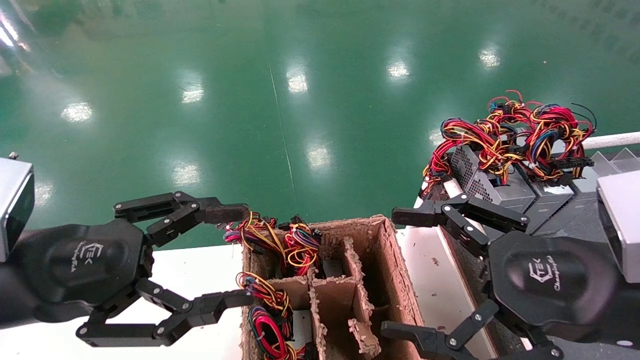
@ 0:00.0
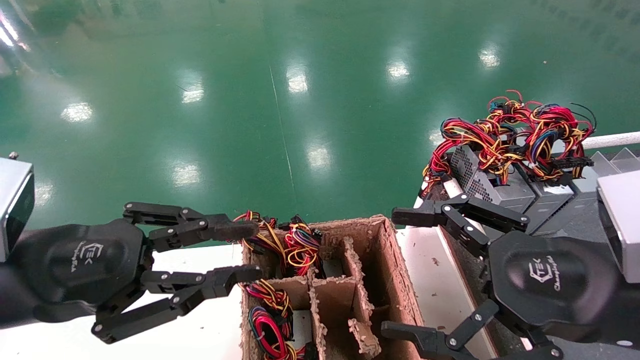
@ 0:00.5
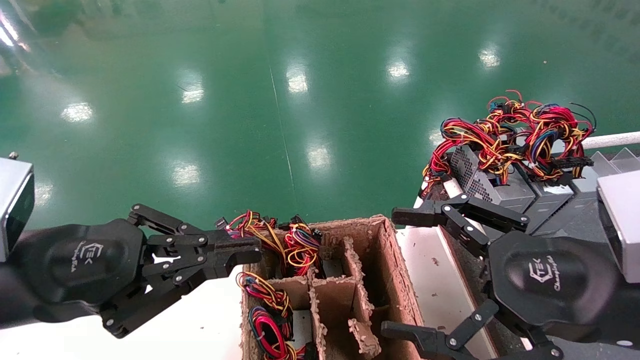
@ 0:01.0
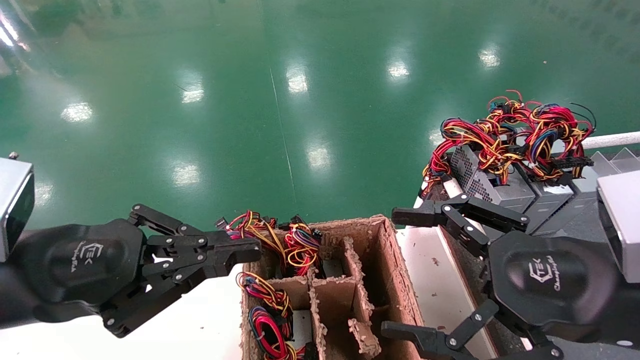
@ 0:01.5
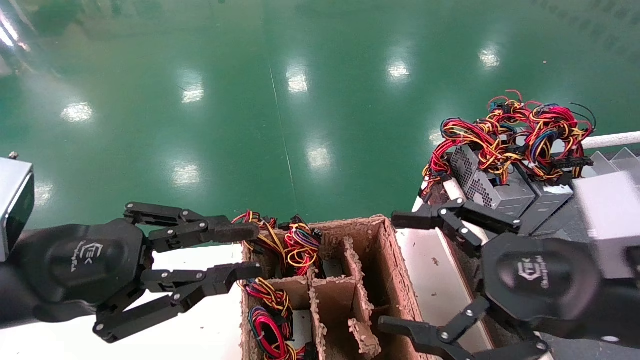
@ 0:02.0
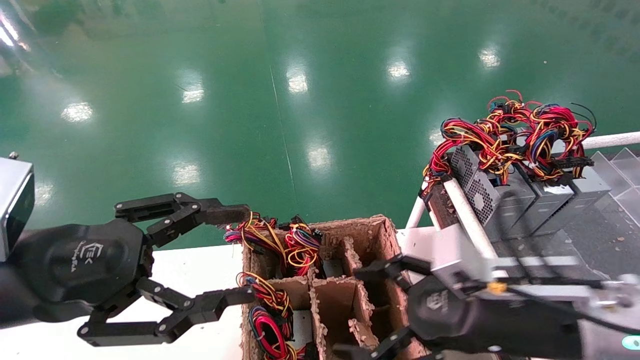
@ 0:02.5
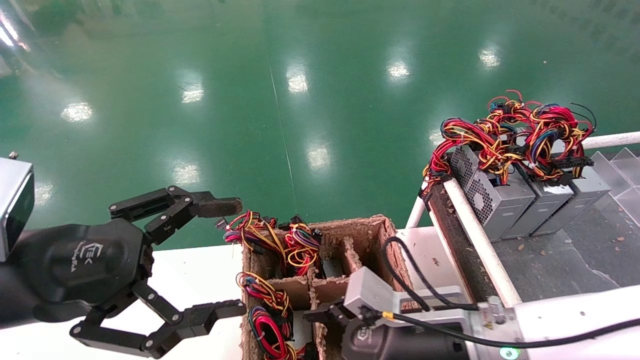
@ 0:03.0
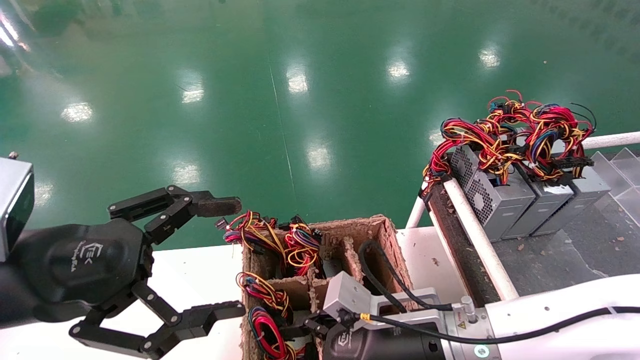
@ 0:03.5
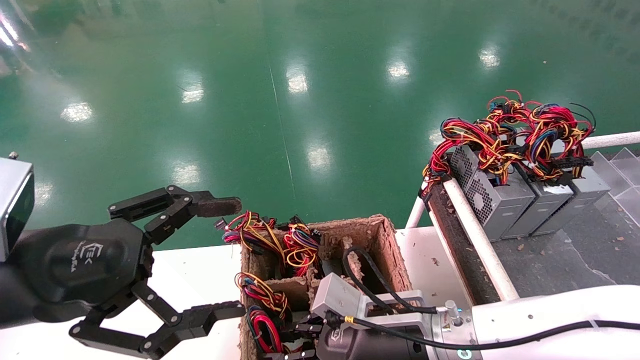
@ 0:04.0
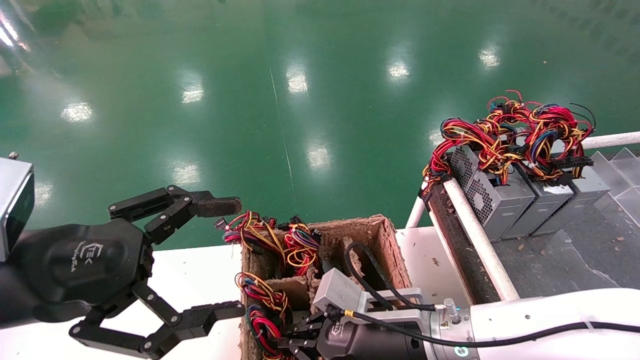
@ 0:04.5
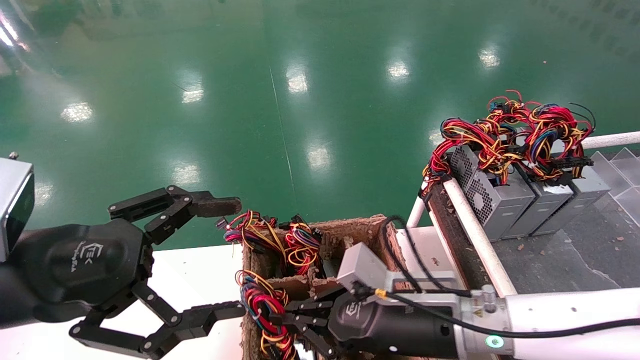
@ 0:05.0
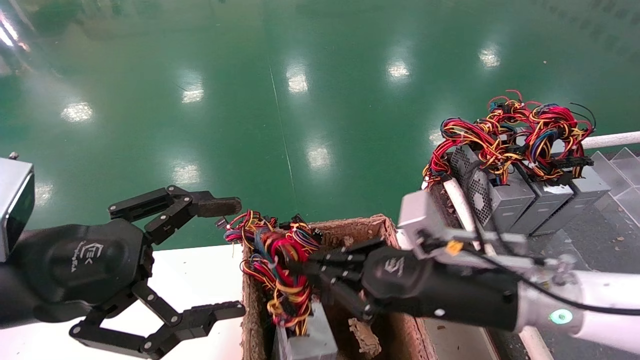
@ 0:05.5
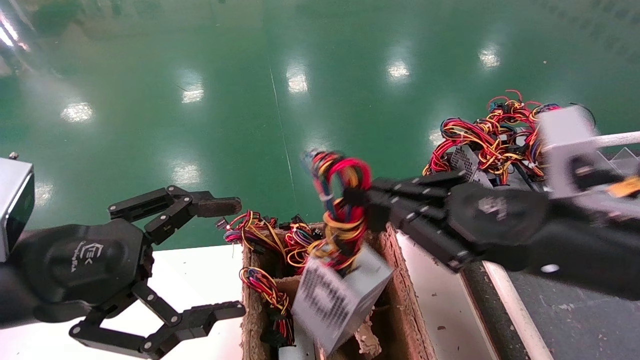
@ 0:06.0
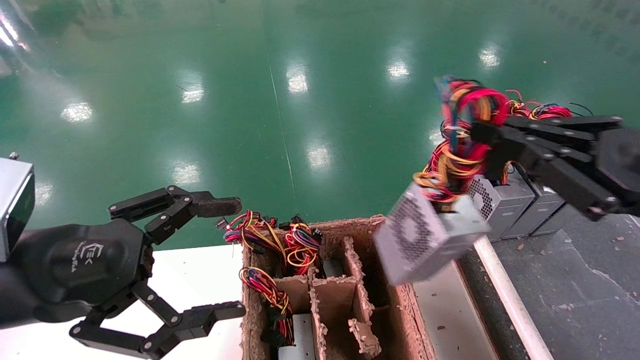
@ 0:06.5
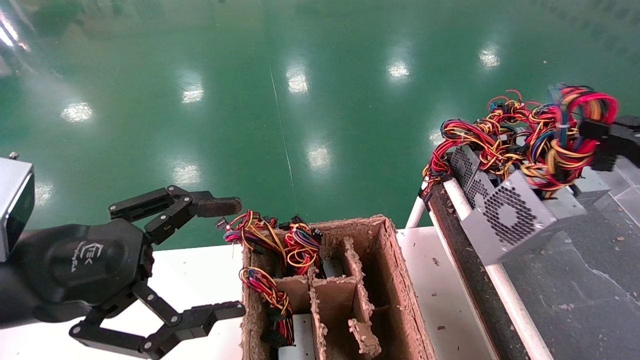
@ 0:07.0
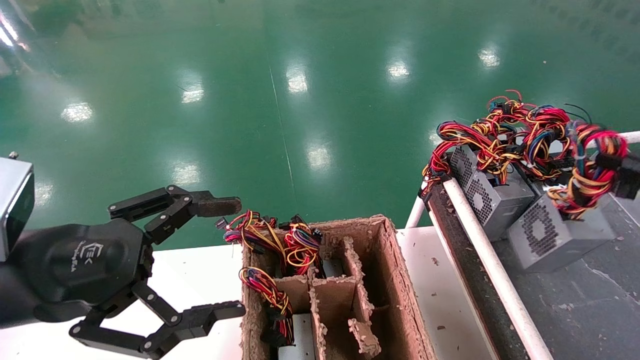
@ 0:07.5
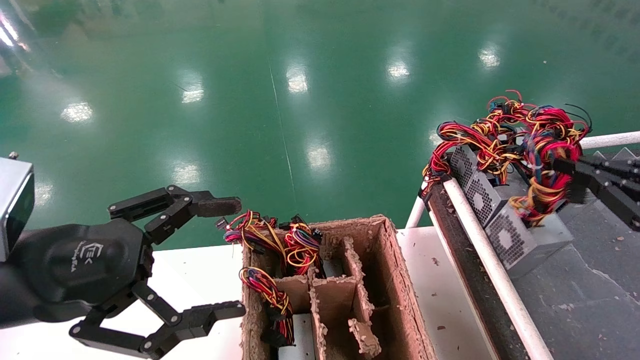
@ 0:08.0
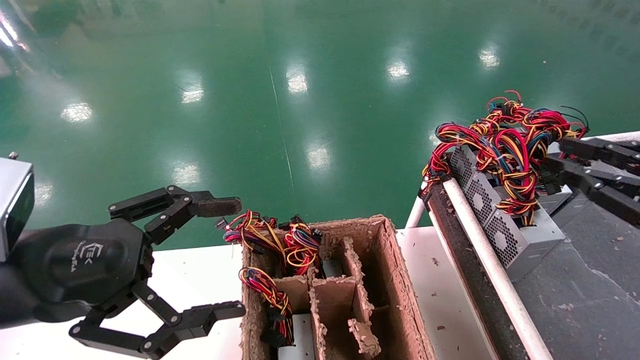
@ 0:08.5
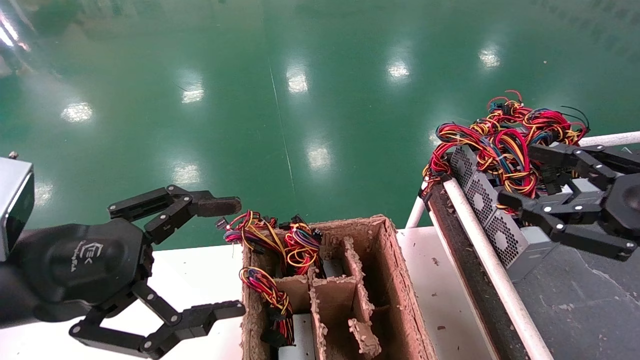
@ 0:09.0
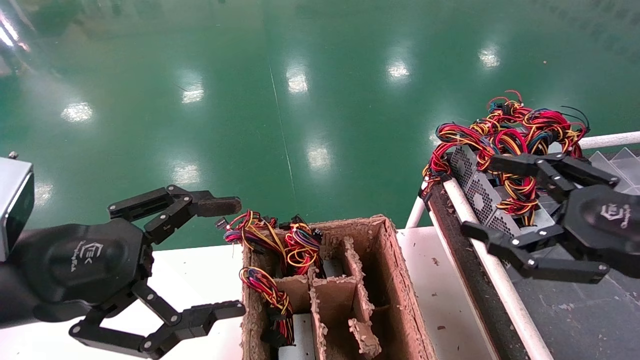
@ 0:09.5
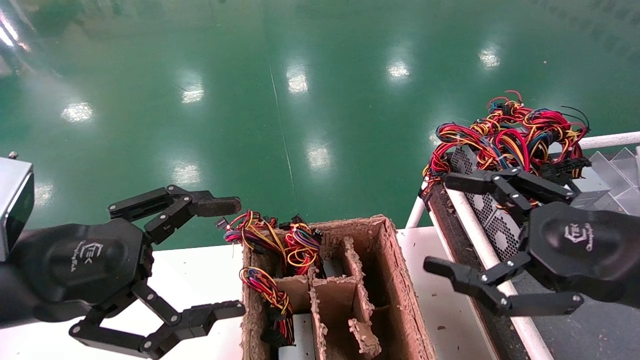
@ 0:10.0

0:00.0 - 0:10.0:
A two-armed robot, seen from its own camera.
Step, 0:01.0 - 0:05.5: Grab and lift the power supply from the large box.
Step, 0:06.0 - 0:09.0: Place the power supply on the operating table.
0:00.0 - 0:02.0: The left gripper closes up.
0:02.0 - 0:04.0: The left gripper opens its fingers. The right gripper shifts roughly 20 cm to the left, downward and forward, and closes its fingers.
0:04.0 - 0:06.0: The right gripper is displaced upward and to the right by approximately 20 cm, and closes its fingers.
0:06.0 - 0:08.0: The right gripper is displaced to the right by some 20 cm.
0:08.0 - 0:10.0: The right gripper goes about 15 cm to the left, and opens.
